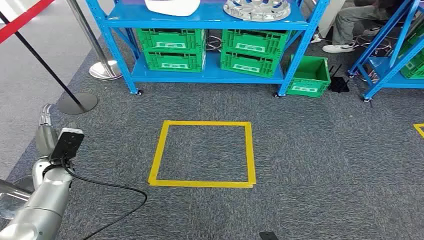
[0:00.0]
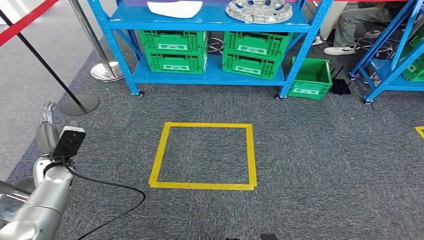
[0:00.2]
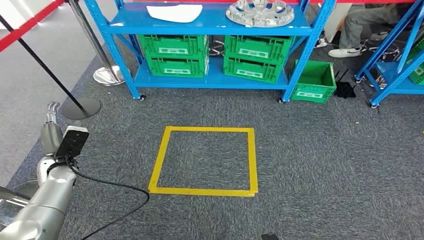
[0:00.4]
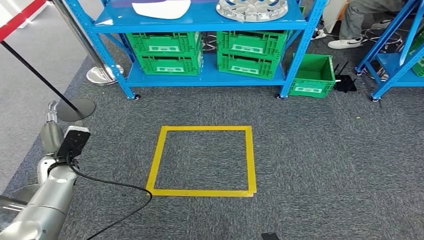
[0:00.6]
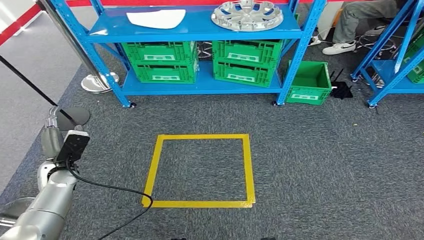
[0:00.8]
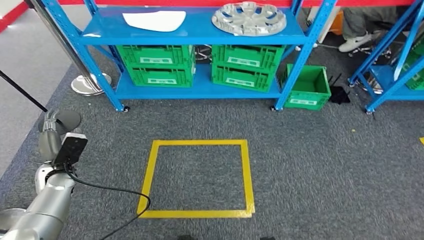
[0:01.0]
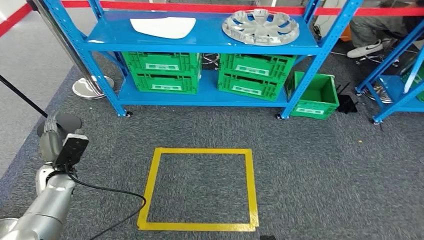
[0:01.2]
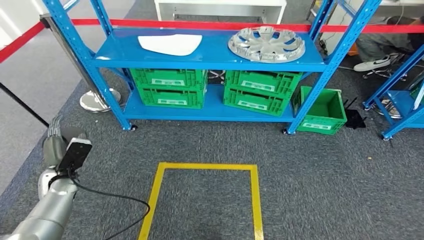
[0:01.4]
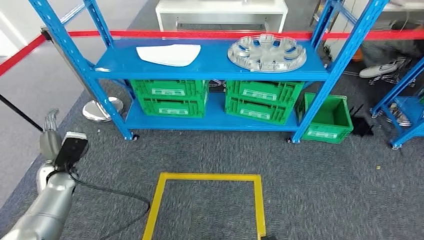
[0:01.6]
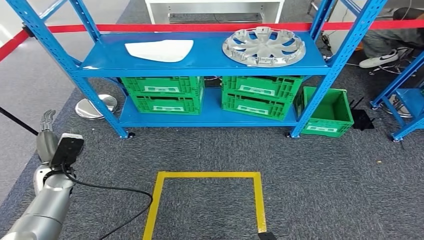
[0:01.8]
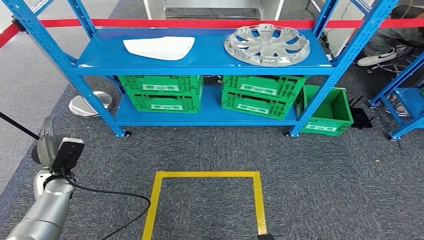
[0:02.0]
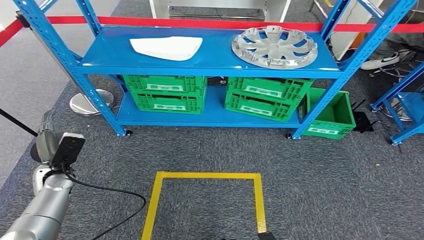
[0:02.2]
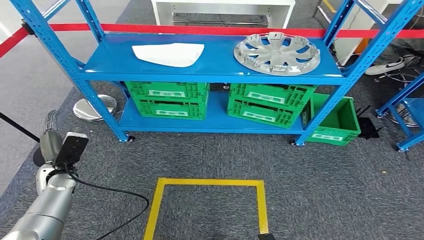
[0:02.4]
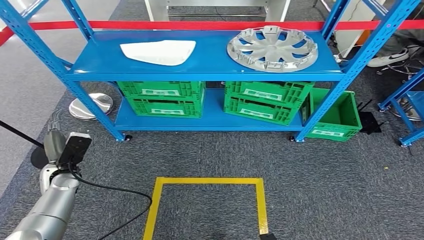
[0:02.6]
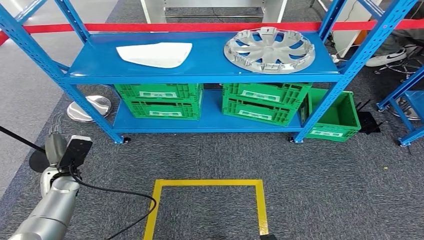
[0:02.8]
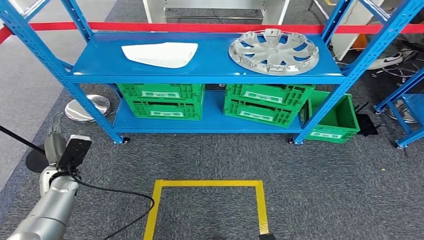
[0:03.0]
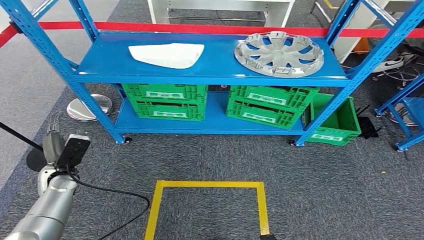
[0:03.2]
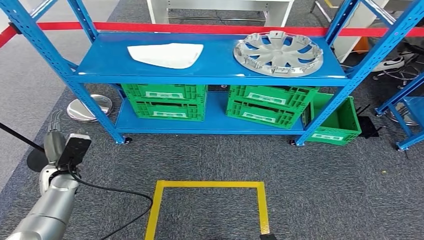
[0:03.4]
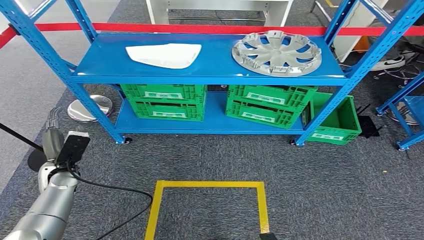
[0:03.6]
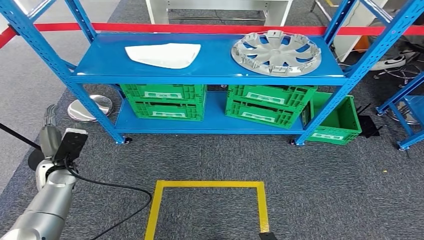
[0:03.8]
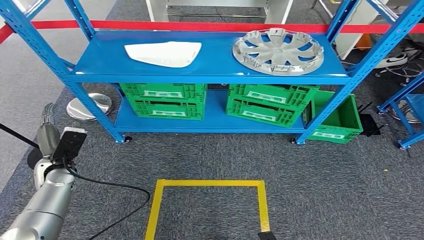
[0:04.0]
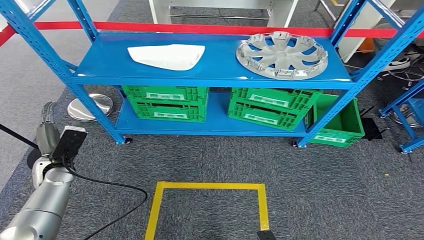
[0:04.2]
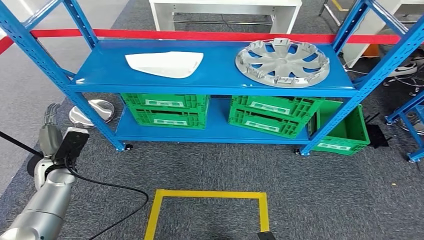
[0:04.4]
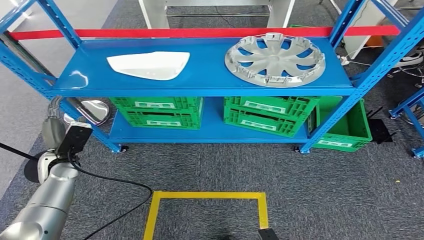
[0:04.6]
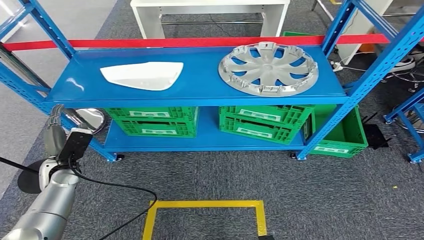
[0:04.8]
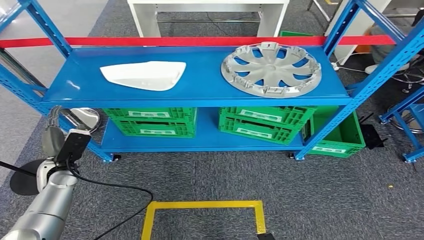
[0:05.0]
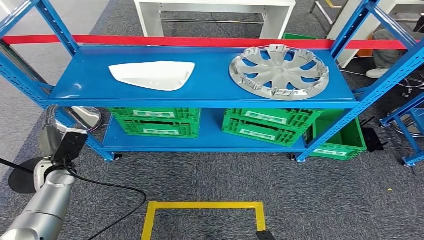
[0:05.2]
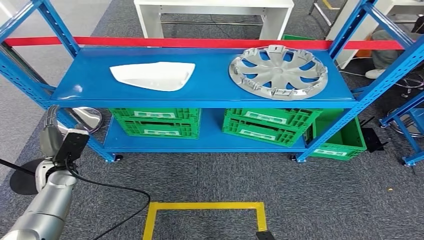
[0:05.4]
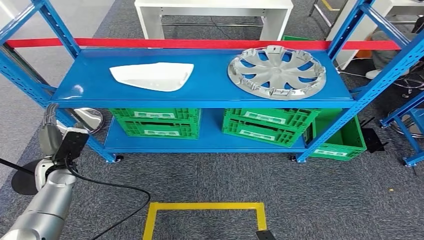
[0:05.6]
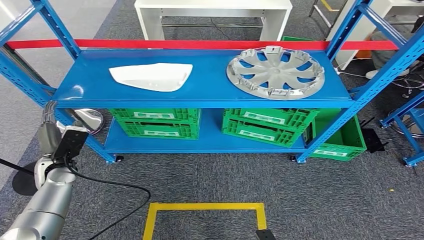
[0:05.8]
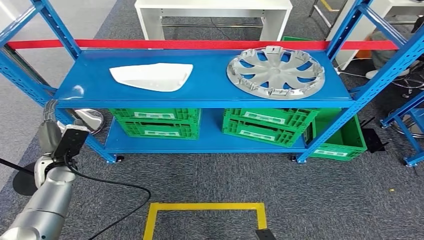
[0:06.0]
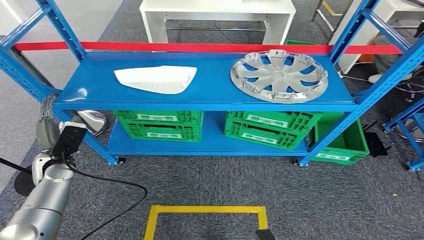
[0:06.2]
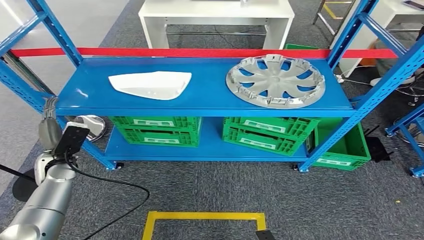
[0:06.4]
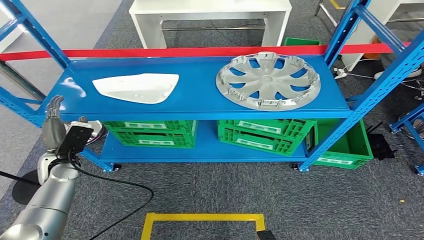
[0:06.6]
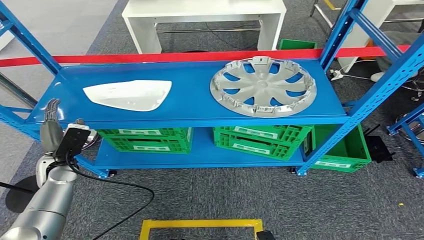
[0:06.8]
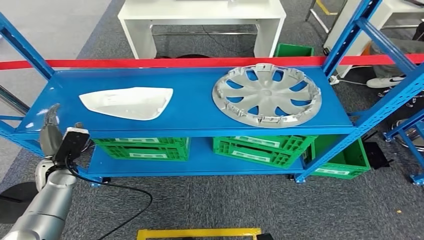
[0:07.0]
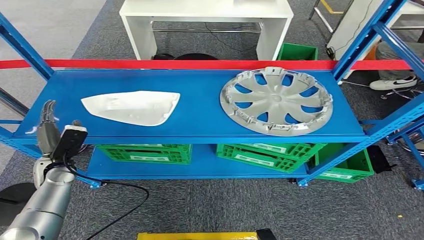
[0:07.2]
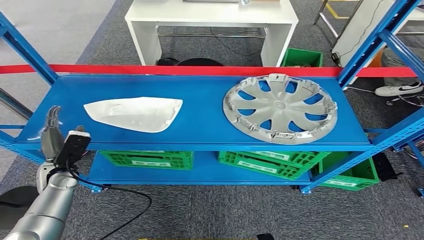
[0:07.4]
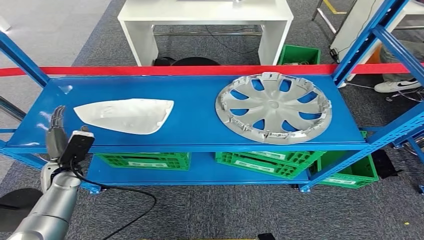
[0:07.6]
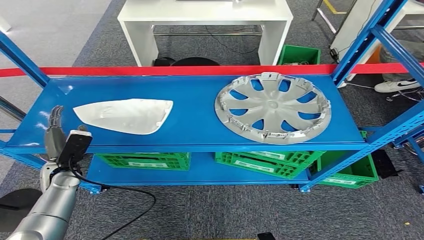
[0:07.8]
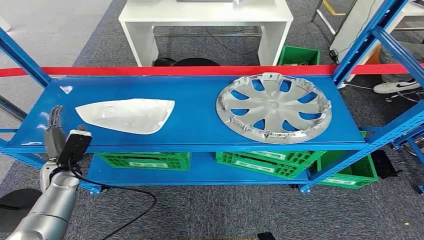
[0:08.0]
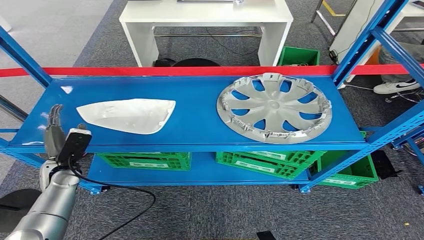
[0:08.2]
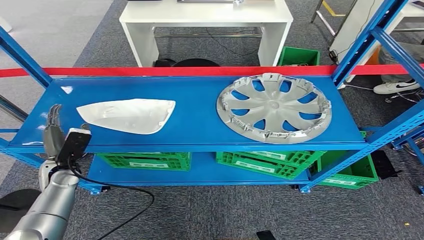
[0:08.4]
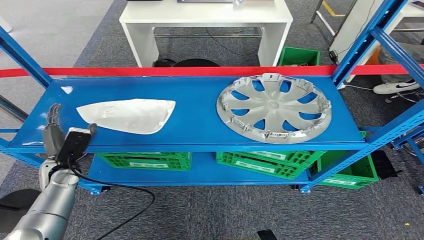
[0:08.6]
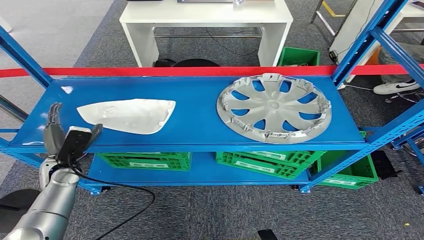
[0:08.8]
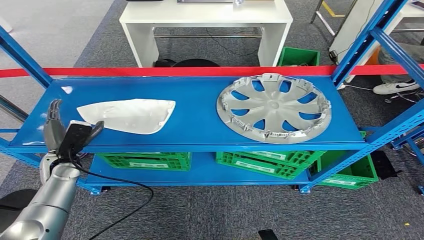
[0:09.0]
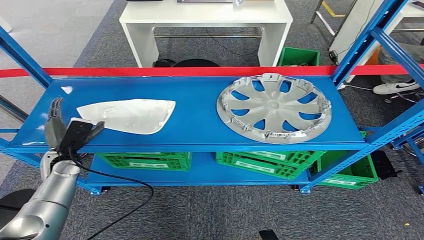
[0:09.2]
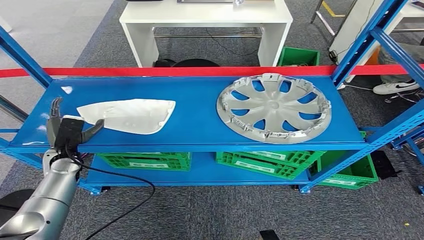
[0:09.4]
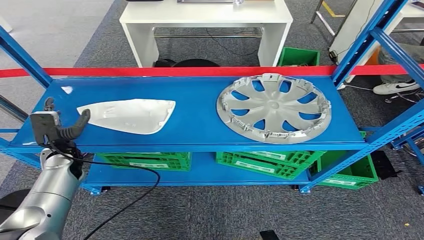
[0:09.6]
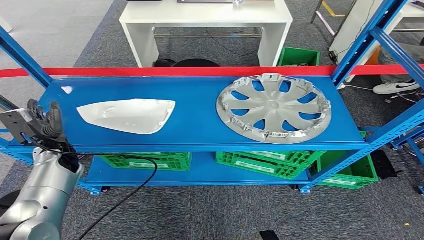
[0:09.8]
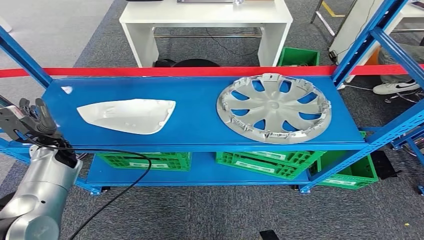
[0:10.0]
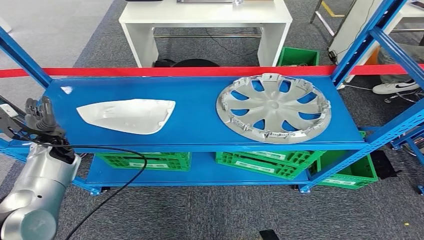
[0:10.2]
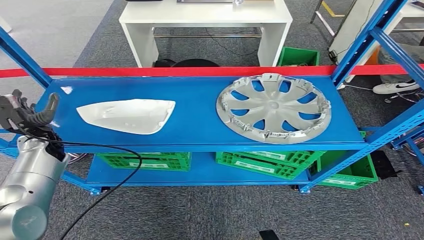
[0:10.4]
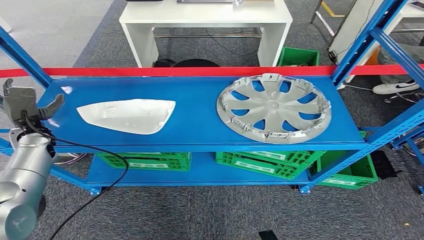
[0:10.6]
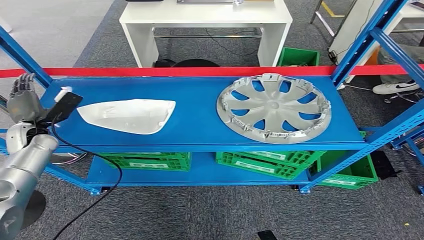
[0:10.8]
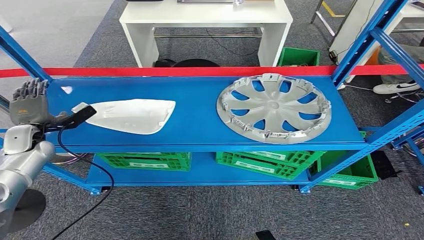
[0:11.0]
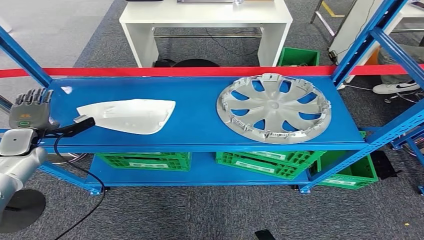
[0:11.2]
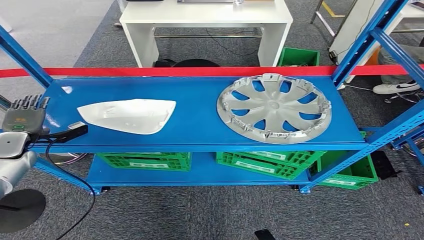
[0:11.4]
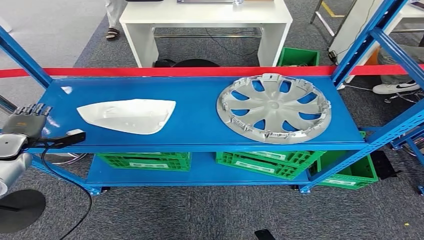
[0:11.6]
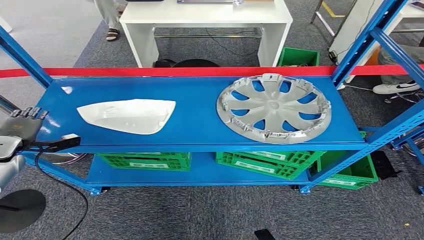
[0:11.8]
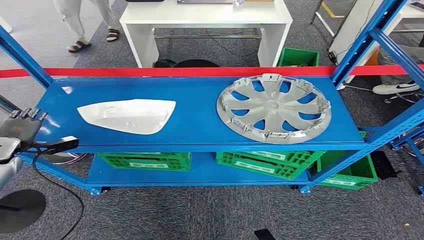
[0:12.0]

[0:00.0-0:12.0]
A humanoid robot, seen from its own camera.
0:07.6 to 0:09.0: The hands make only small movements.
0:09.0 to 0:10.4: The left hand travels forward by roughly 5 cm.
0:10.4 to 0:12.0: The left hand moves to the left, approximately 10 cm.

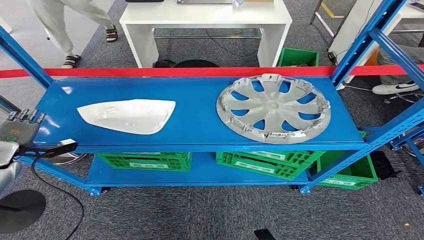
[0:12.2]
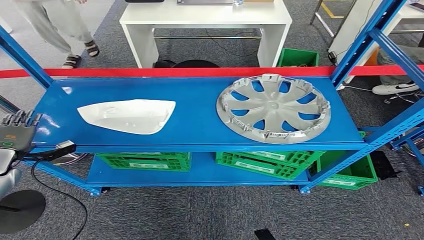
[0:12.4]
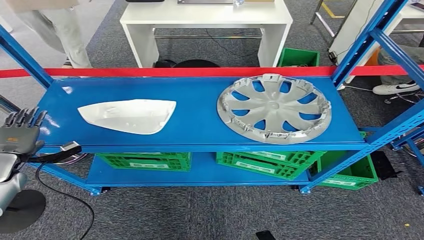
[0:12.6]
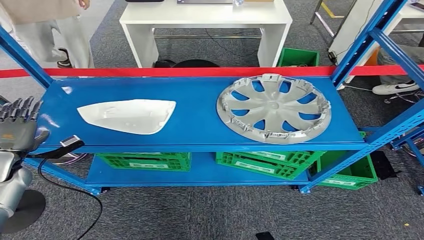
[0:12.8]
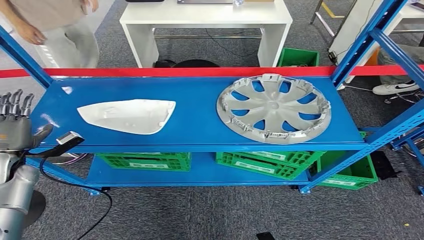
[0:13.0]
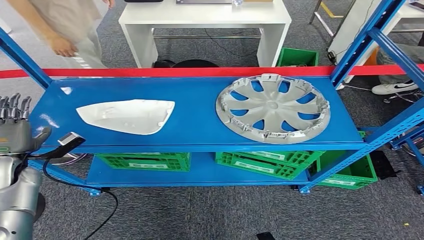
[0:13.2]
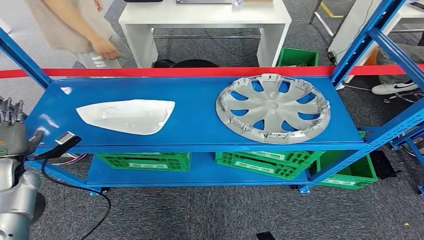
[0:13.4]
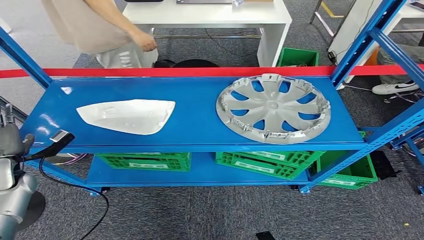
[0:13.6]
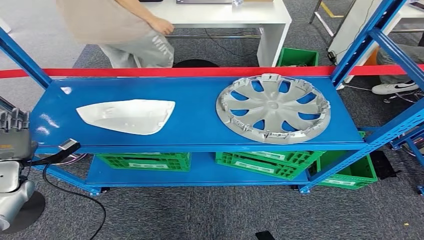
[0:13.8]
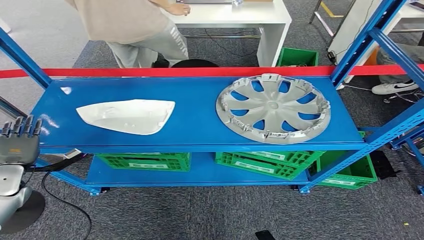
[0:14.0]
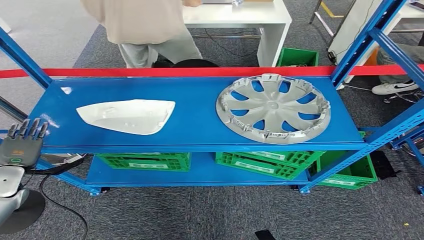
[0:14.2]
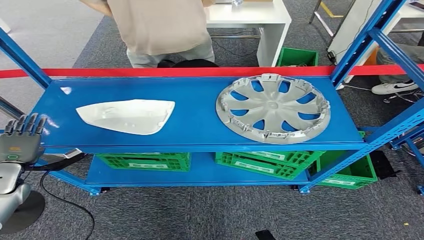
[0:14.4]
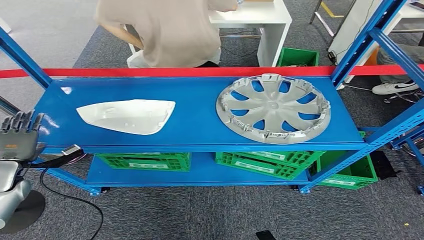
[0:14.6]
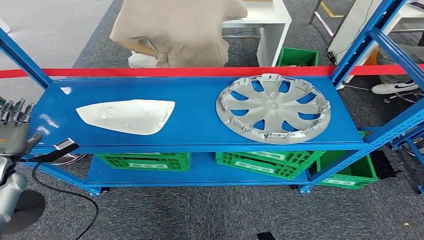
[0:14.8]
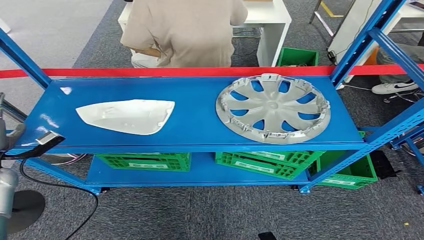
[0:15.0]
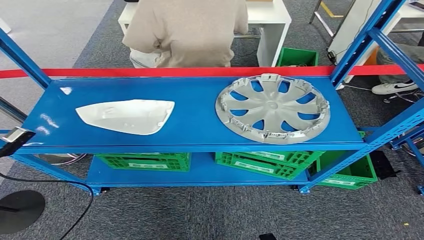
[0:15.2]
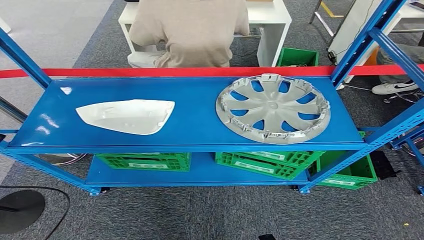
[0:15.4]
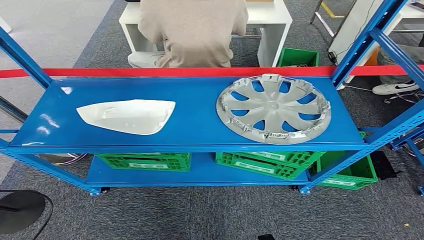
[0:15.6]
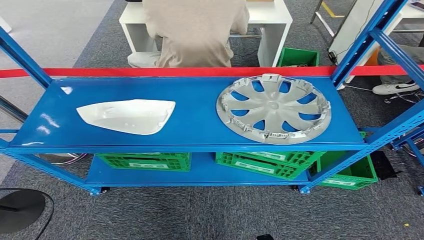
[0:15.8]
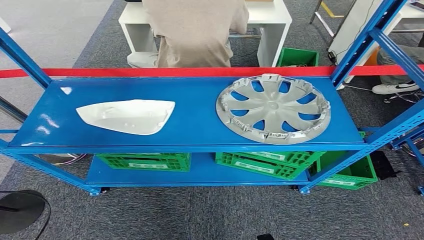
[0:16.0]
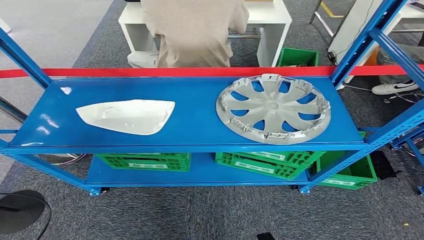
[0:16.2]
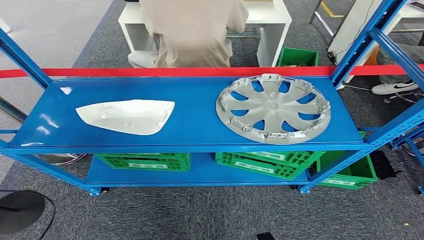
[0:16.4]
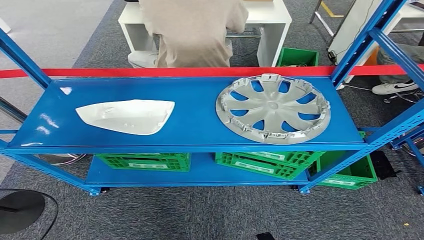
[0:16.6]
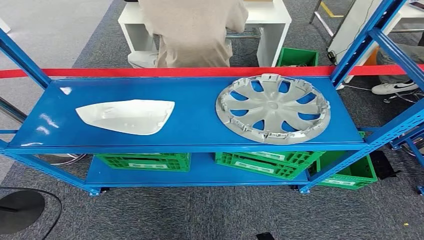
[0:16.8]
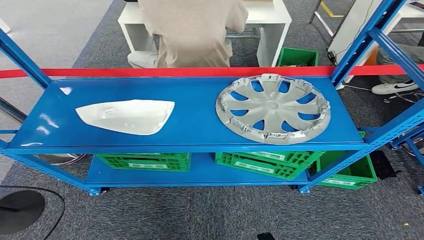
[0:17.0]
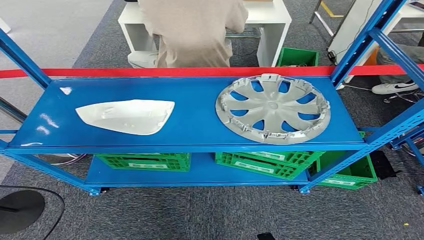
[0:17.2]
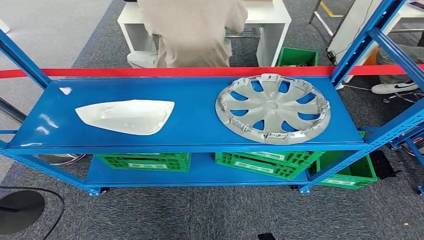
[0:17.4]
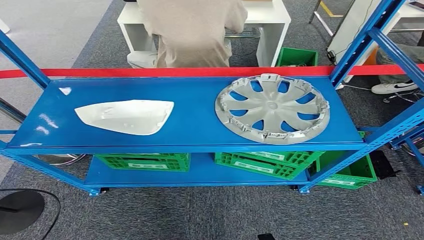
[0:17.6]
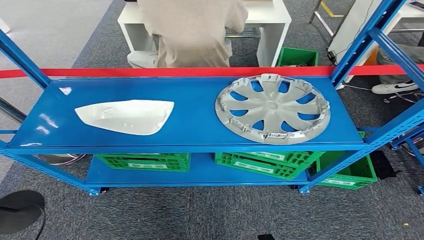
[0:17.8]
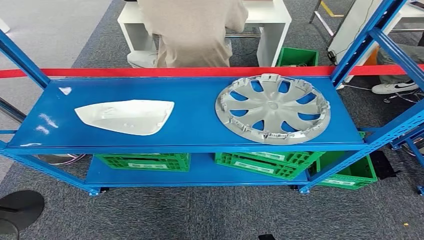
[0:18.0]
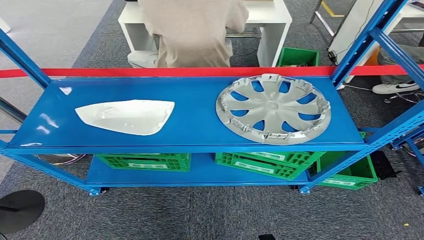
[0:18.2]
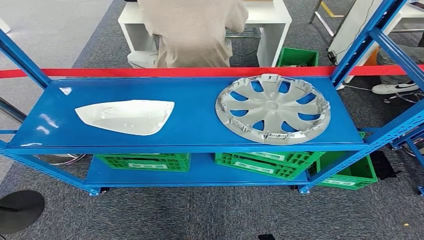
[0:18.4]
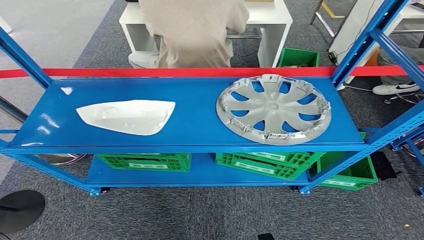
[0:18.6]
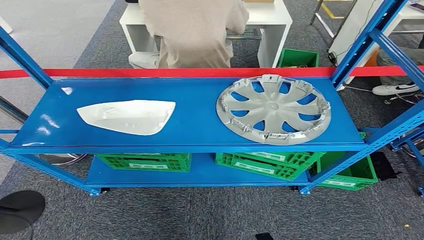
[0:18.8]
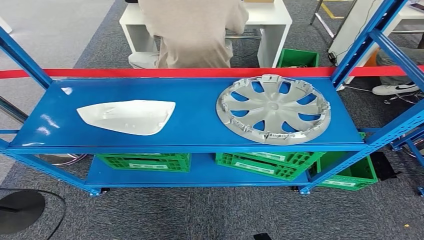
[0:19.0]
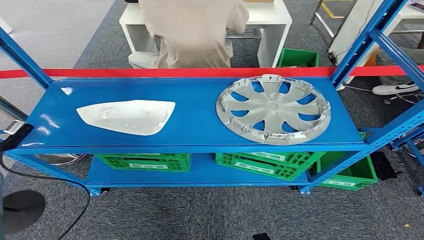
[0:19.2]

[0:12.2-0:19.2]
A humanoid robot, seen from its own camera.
0:12.2 to 0:13.6: The left hand changes place by about 5 cm.
0:15.0 to 0:16.4: The left hand goes about 15 cm to the left and backward.
0:16.4 to 0:17.8: The left hand travels backward by approximately 5 cm.
0:17.8 to 0:19.2: The left hand goes some 15 cm forward and to the right.
